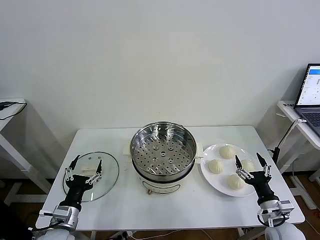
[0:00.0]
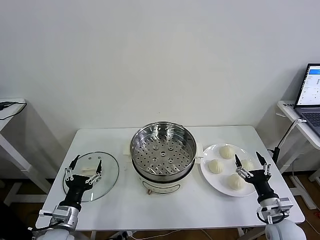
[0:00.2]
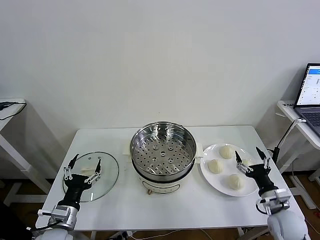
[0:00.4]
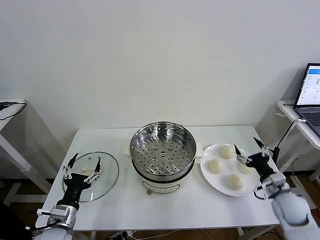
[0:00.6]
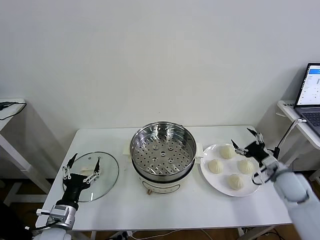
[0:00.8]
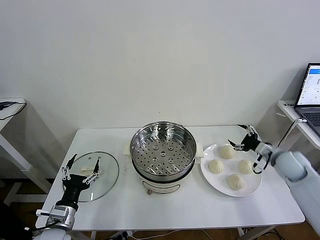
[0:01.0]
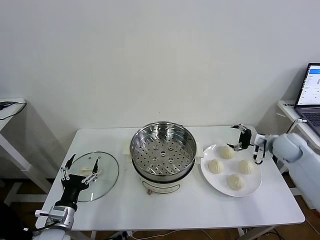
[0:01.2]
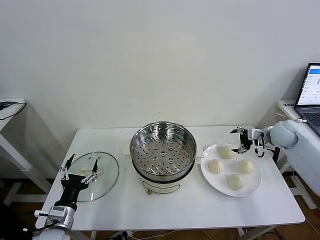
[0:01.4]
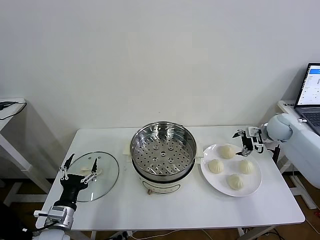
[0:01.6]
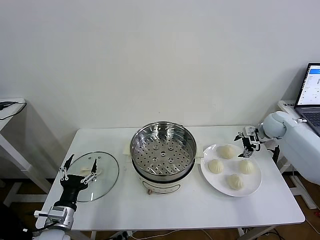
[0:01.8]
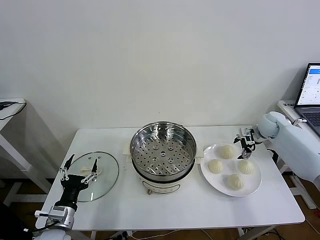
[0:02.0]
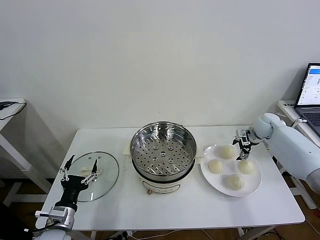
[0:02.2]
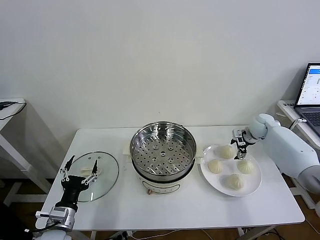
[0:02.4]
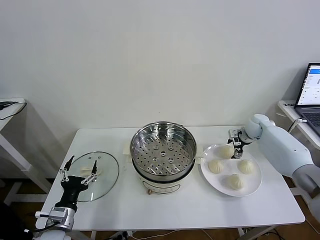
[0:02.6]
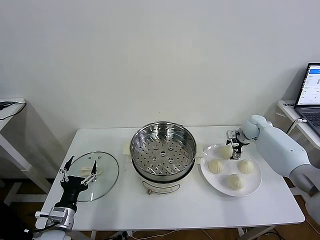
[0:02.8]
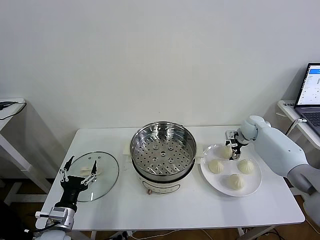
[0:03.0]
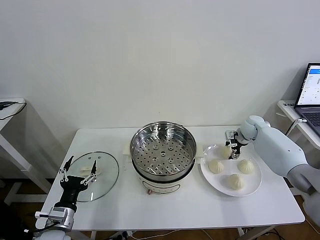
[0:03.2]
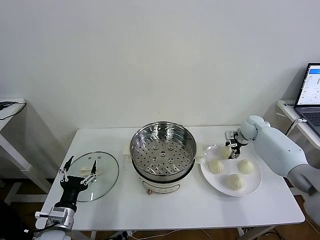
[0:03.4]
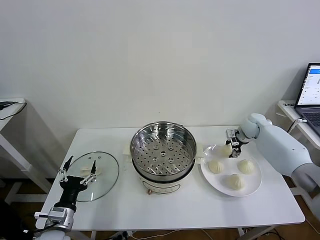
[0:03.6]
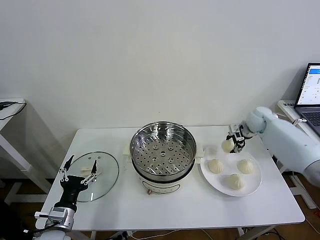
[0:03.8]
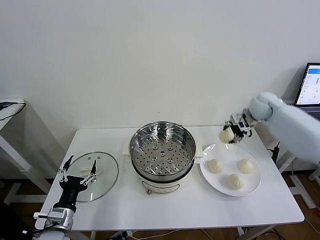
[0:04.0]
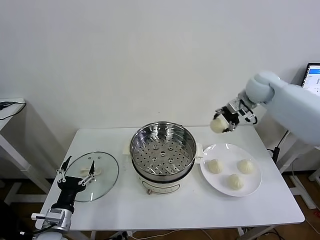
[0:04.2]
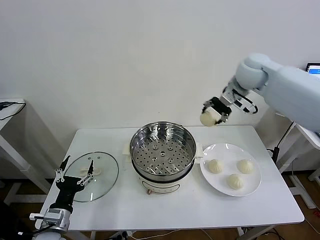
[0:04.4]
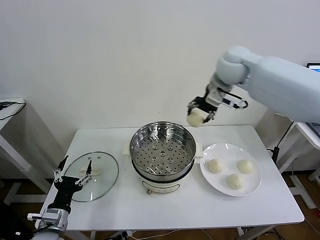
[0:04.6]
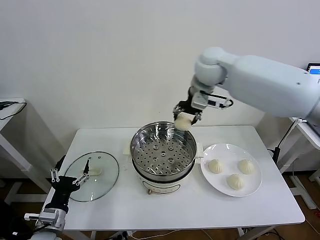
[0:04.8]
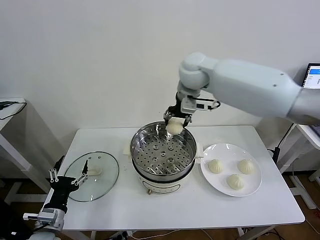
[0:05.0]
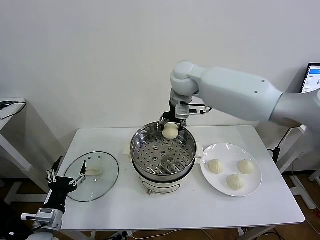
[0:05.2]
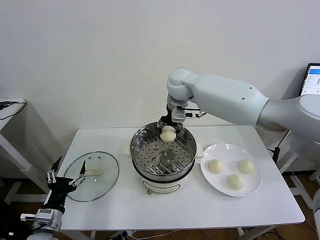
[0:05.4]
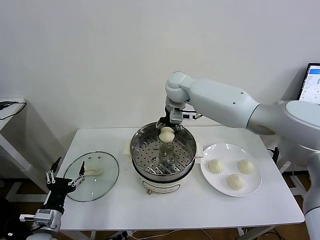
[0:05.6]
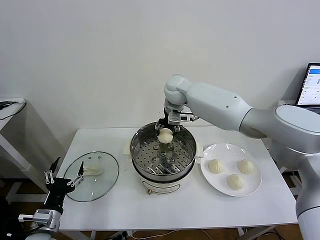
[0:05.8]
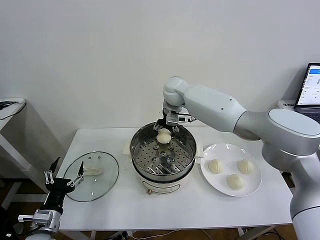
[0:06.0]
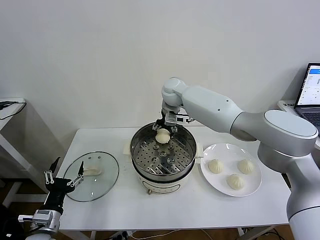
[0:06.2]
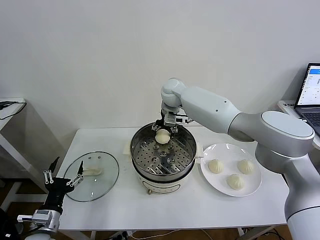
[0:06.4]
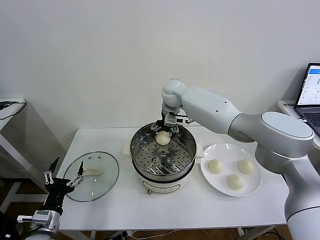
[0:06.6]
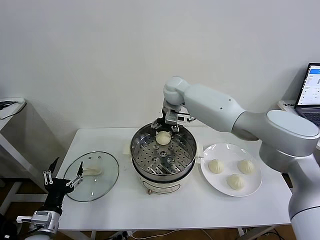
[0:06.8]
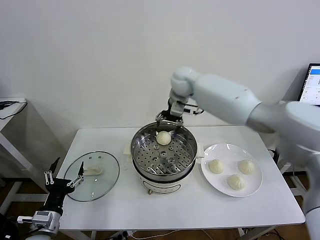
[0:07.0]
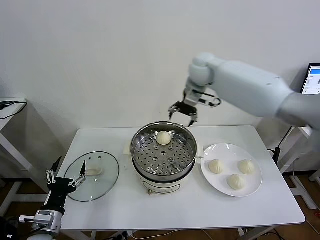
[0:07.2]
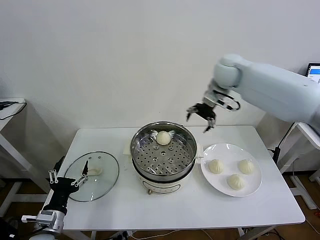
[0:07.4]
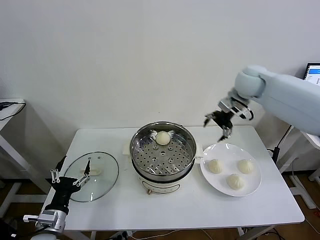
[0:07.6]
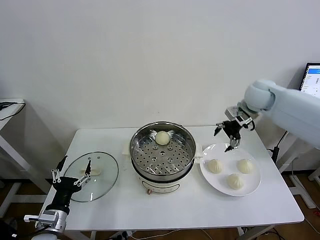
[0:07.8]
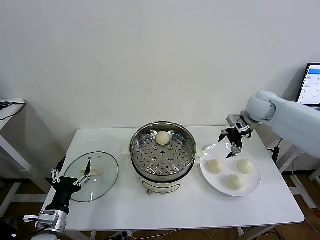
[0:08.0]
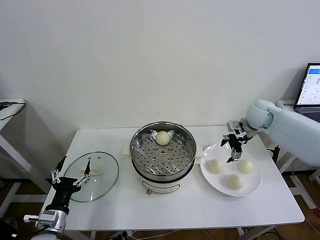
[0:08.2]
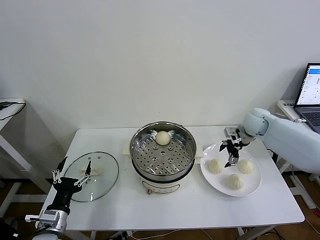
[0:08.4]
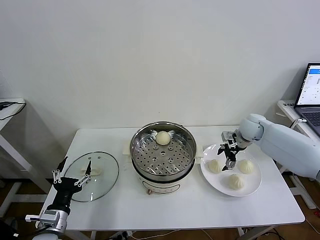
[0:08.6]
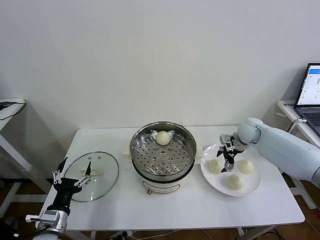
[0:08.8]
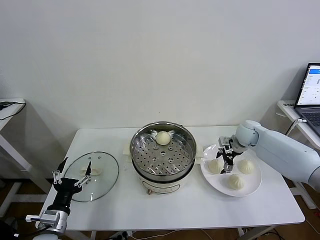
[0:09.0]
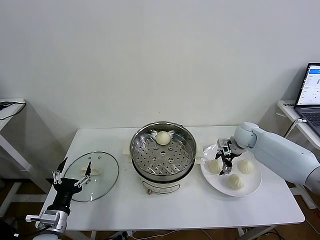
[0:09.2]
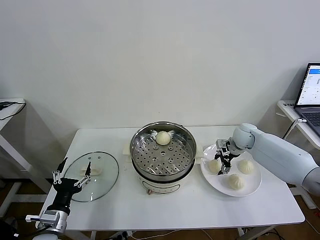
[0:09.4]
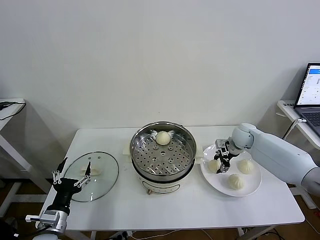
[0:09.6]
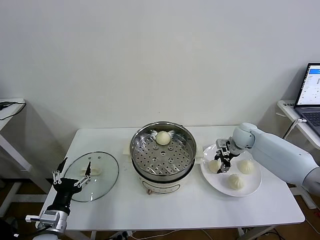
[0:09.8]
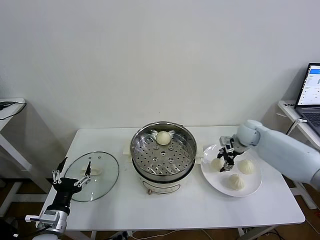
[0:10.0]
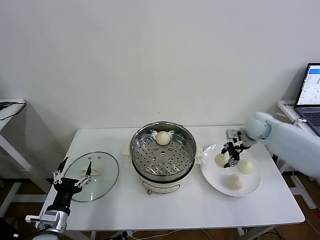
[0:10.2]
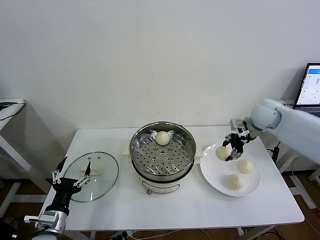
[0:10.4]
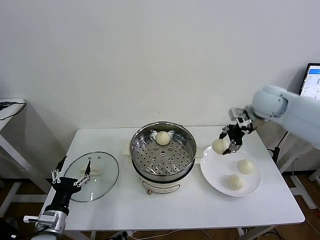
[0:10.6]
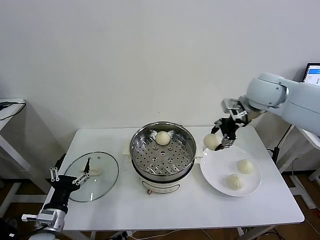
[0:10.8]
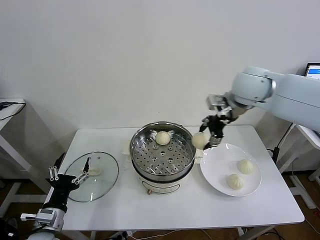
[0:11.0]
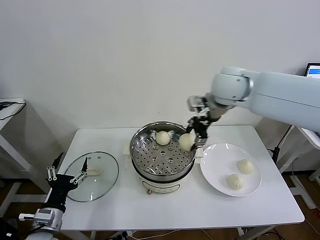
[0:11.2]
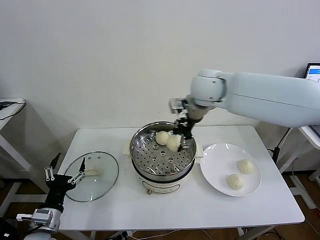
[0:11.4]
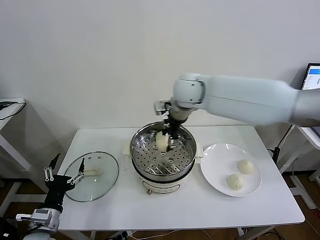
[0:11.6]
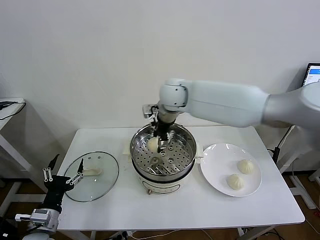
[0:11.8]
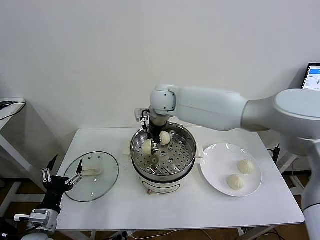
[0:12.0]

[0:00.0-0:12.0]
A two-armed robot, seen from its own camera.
Task of the whole recording: take steamed baozi put them in steamer then cover it.
Step, 0:00.0 to 0:03.2: Grasp the baozi in the plate with right gripper.
Step, 0:03.4 to 0:06.4: Place the baozi on the steamer with right gripper.
Step, 0:06.6 to 0:09.4: Grasp the baozi in the plate with right gripper.
0:01.6 to 0:03.0: The right gripper heads downward, forward and to the left, covering approximately 10 cm.
0:03.0 to 0:04.4: The right gripper heads upward and to the left, covering about 30 cm, and closes.
0:04.4 to 0:06.0: The right gripper shifts about 20 cm to the left and downward.
0:06.0 to 0:07.6: The right gripper heads to the right, covering about 25 cm, and opens up.
0:07.6 to 0:09.0: The right gripper shifts about 20 cm downward.
0:09.0 to 0:10.4: The right gripper moves upward, approximately 15 cm, and closes its fingers.
0:10.4 to 0:12.0: The right gripper travels to the left by some 35 cm.

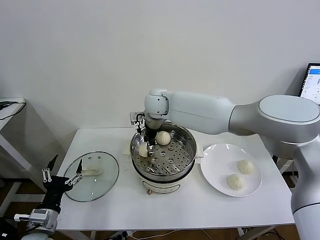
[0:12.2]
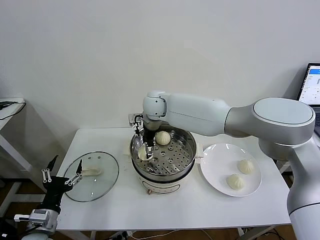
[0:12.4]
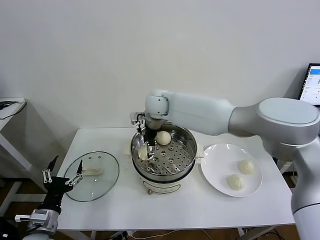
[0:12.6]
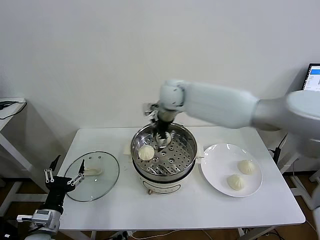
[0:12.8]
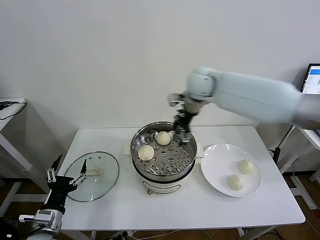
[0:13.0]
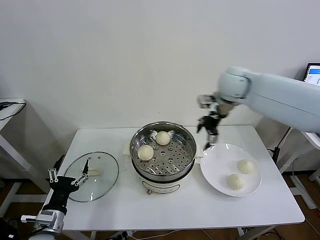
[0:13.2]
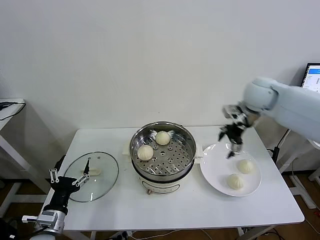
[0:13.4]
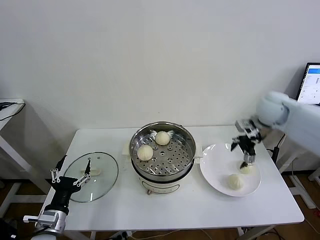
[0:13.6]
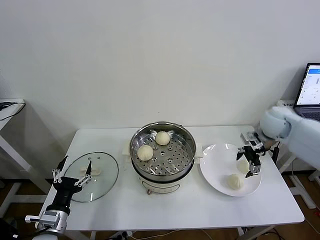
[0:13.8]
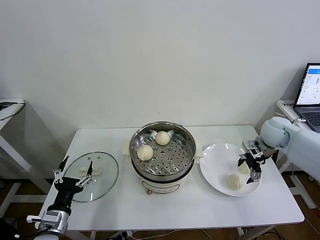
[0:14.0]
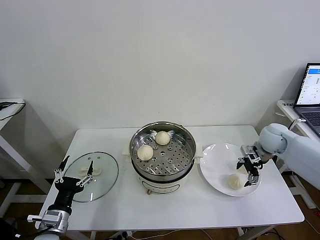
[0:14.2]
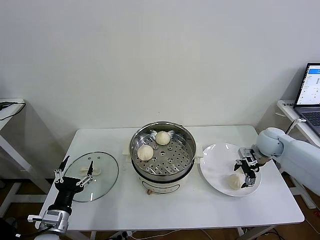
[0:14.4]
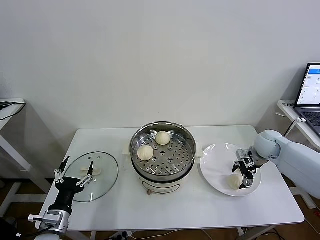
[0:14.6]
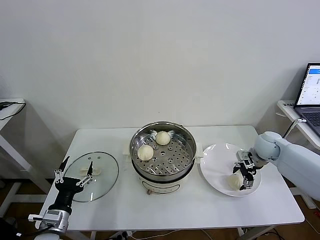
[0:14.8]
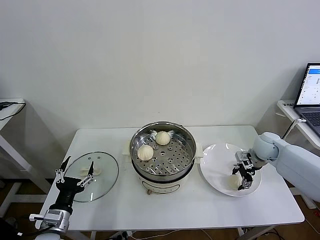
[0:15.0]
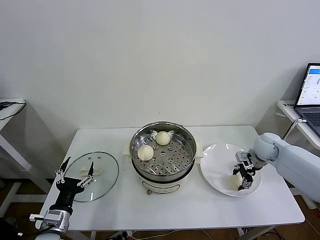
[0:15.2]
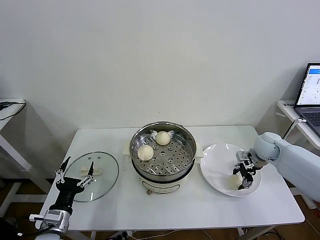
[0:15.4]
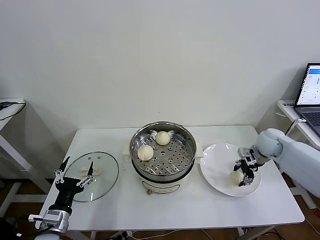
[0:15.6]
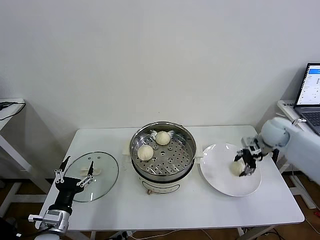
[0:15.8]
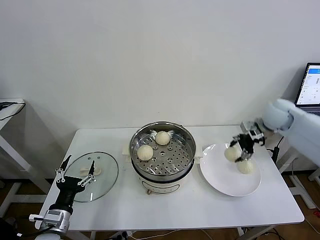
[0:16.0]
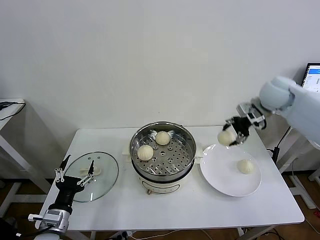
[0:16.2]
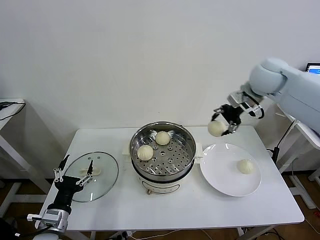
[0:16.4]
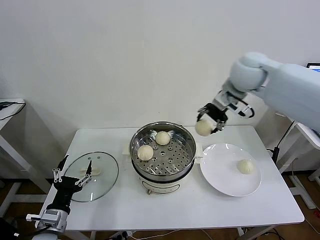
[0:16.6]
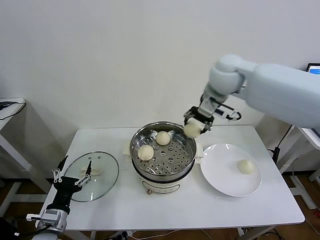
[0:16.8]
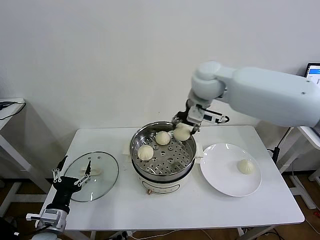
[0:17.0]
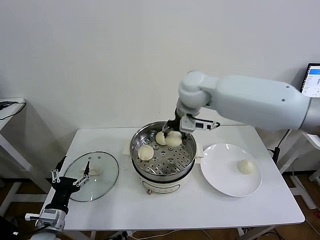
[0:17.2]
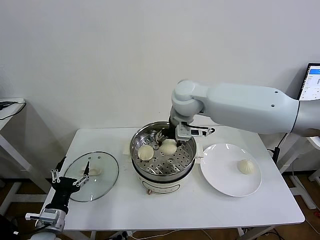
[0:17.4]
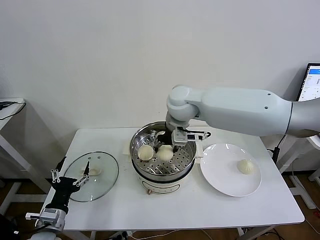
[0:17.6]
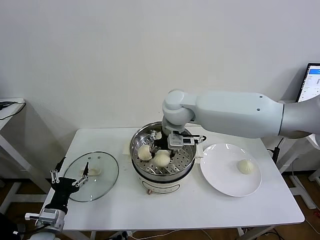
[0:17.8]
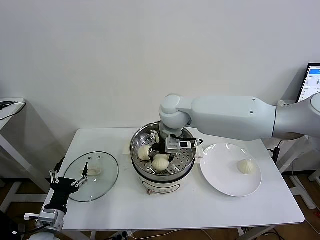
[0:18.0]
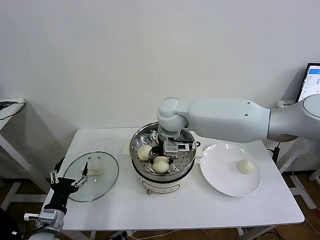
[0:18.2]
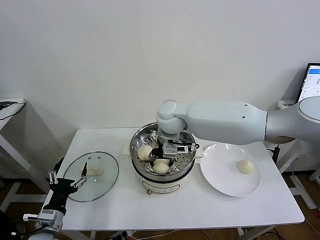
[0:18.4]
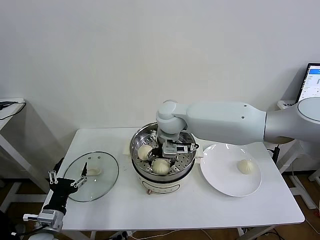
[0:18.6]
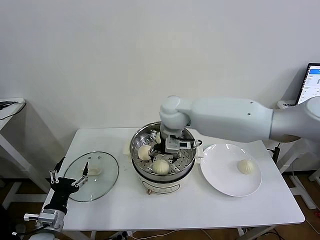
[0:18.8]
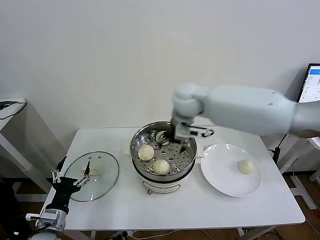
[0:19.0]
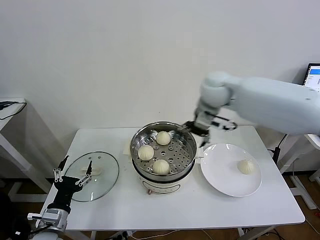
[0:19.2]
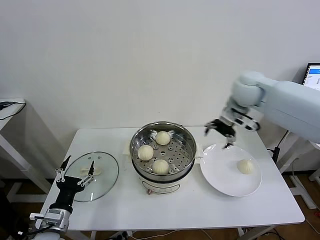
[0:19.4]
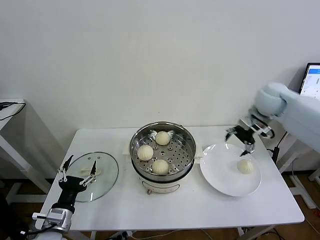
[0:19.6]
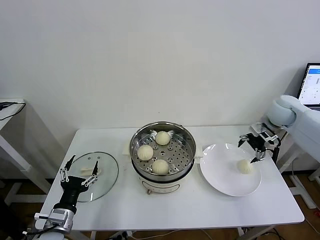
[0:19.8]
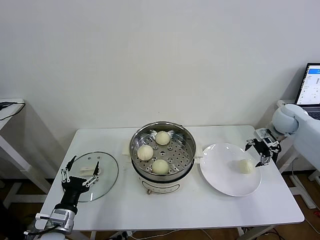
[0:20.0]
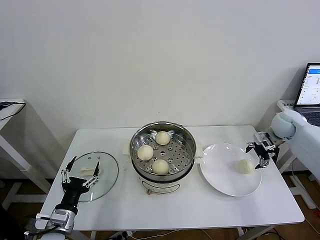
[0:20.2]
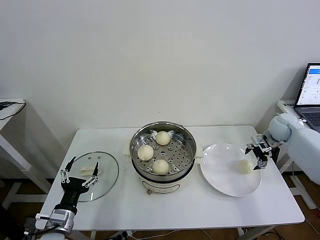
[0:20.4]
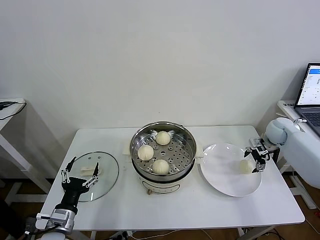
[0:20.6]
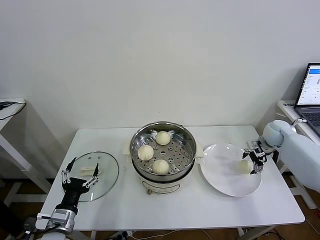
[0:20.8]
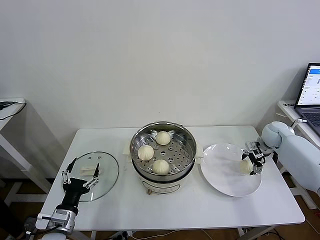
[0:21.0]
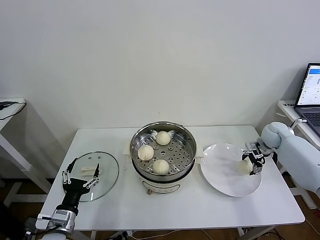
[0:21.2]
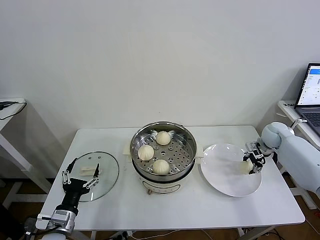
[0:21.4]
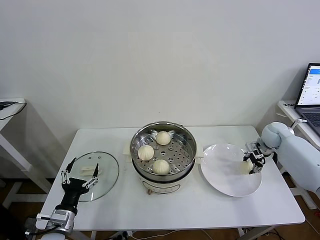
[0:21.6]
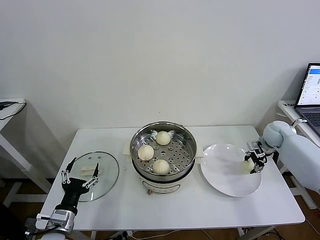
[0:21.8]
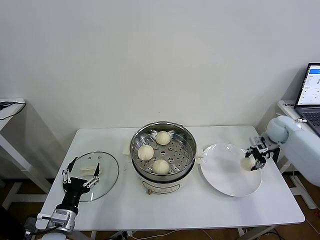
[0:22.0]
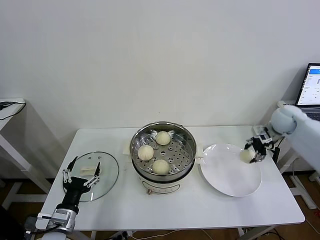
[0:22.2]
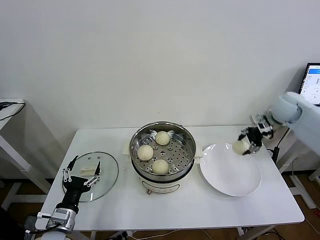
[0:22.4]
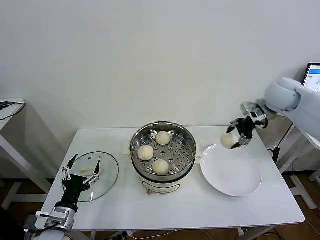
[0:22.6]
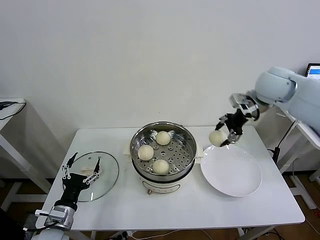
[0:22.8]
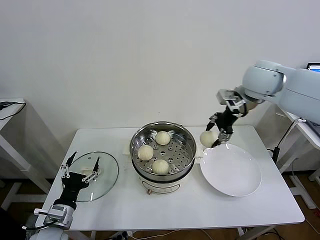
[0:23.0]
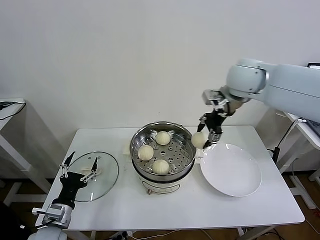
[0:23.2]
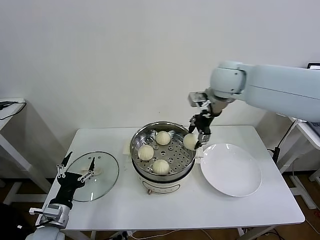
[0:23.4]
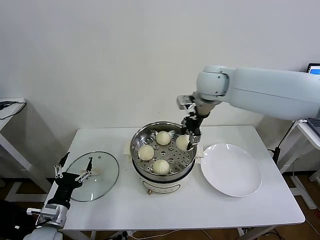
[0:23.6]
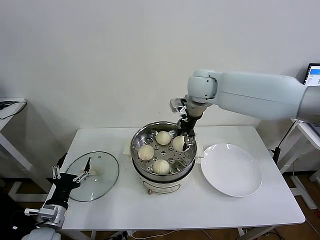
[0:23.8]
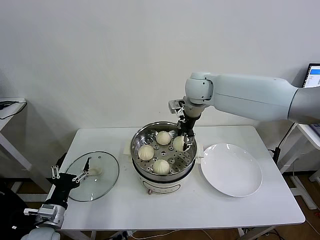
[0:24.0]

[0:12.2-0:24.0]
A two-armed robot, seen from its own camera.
Task of the whole recording: take steamed baozi put them in steamer then cover it.
Step, 0:12.6 to 0:15.0: Grasp the baozi in the plate with right gripper.
Step, 0:15.2 to 0:18.6: Place the baozi on the steamer with right gripper.
Step, 0:18.8 to 0:21.4: Grasp the baozi in the plate with right gripper.
0:12.2 to 0:13.6: The right gripper goes about 35 cm to the right, and opens up.
0:13.6 to 0:15.2: The right gripper heads downward, covering about 15 cm, and closes.
0:15.2 to 0:16.6: The right gripper moves upward and to the left, some 35 cm.
0:16.6 to 0:18.2: The right gripper moves to the left and downward, some 20 cm.
0:18.2 to 0:19.6: The right gripper travels to the right by about 35 cm, and opens.
0:19.6 to 0:21.0: The right gripper heads downward and to the right, covering roughly 20 cm.
0:21.0 to 0:22.6: The right gripper shifts about 25 cm upward and to the left, and closes up.
0:22.6 to 0:24.0: The right gripper goes some 25 cm to the left.
